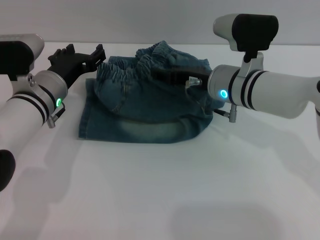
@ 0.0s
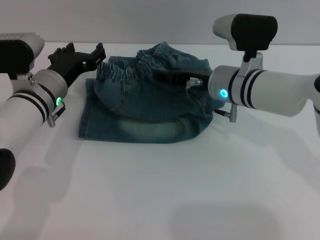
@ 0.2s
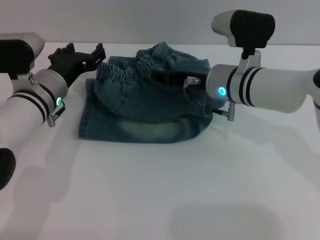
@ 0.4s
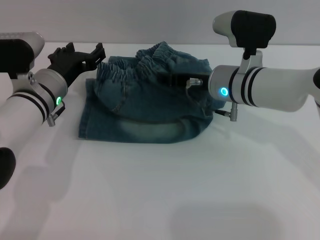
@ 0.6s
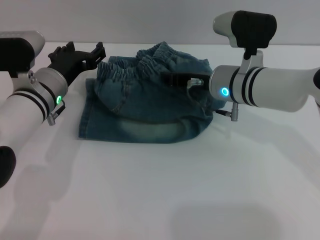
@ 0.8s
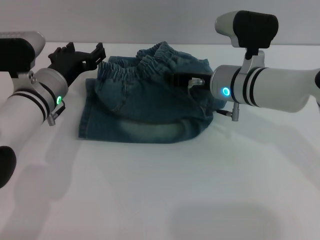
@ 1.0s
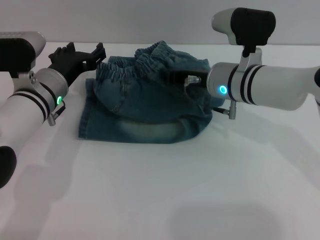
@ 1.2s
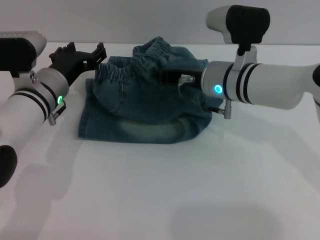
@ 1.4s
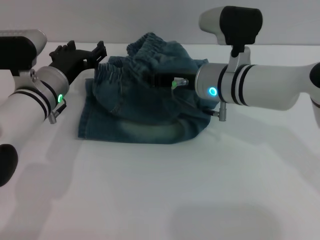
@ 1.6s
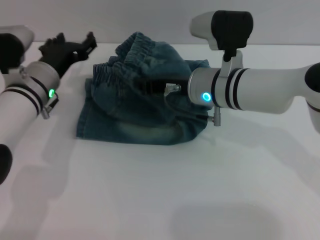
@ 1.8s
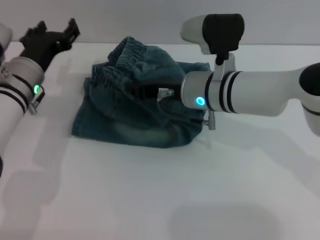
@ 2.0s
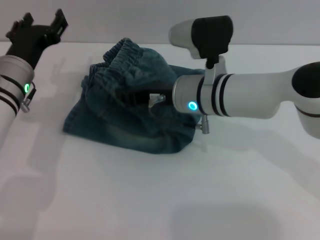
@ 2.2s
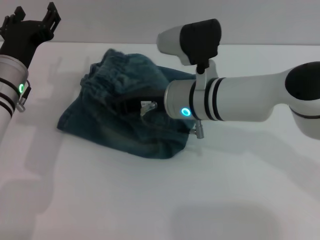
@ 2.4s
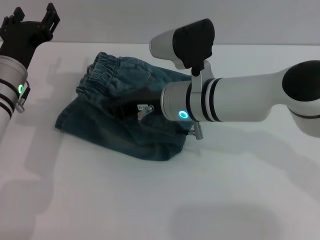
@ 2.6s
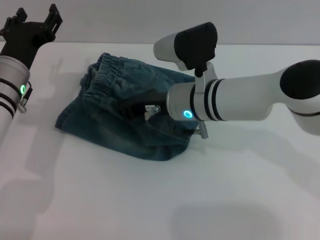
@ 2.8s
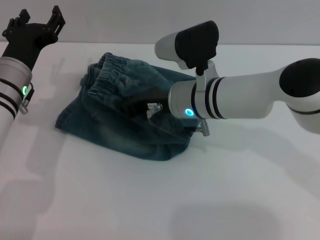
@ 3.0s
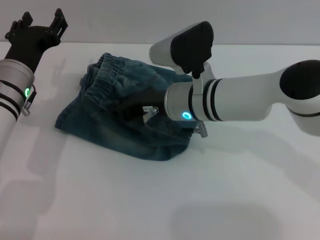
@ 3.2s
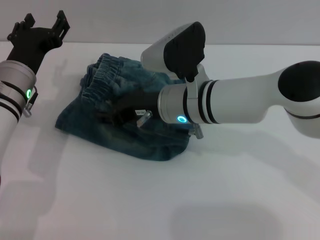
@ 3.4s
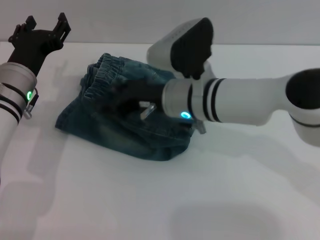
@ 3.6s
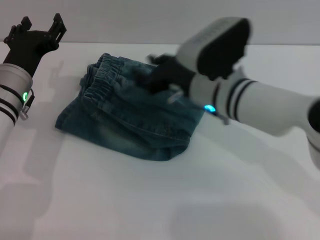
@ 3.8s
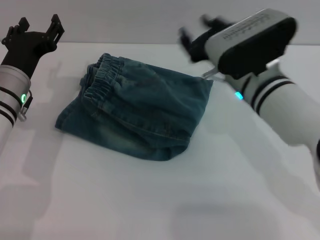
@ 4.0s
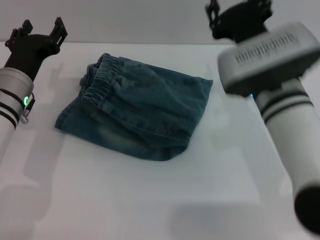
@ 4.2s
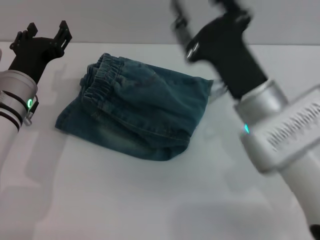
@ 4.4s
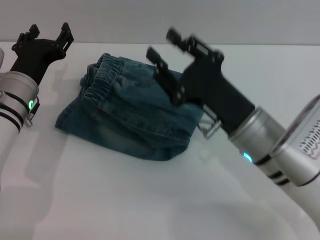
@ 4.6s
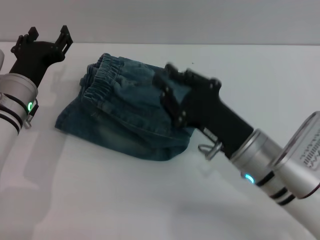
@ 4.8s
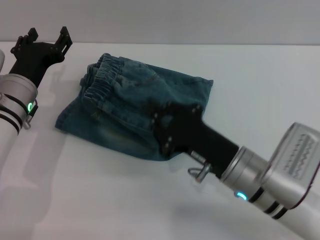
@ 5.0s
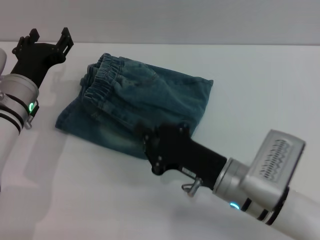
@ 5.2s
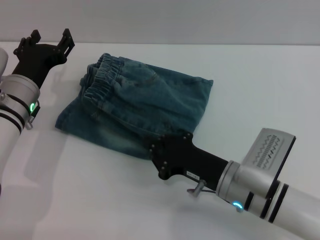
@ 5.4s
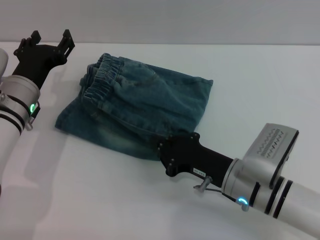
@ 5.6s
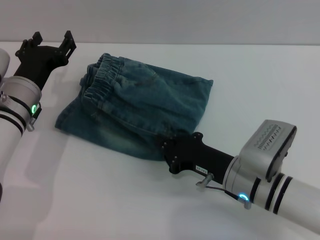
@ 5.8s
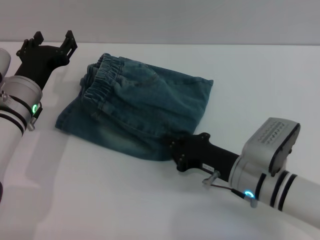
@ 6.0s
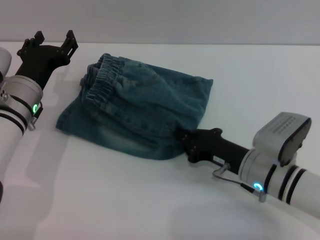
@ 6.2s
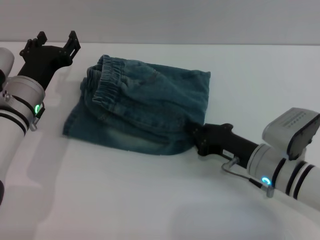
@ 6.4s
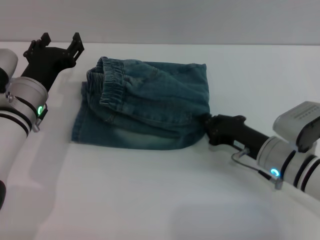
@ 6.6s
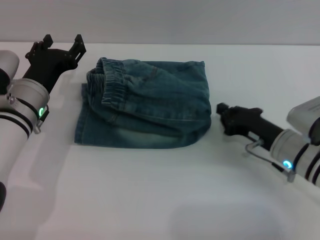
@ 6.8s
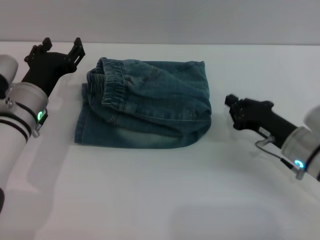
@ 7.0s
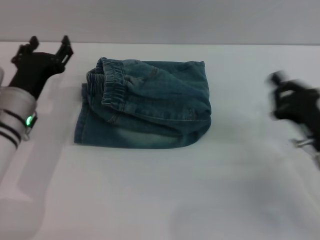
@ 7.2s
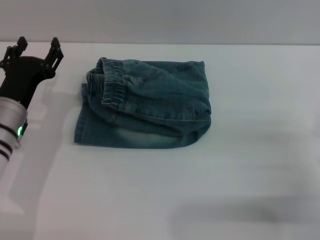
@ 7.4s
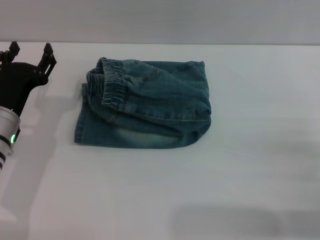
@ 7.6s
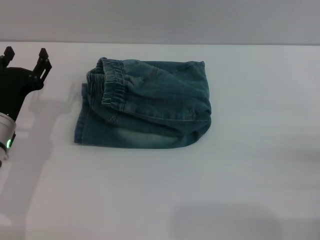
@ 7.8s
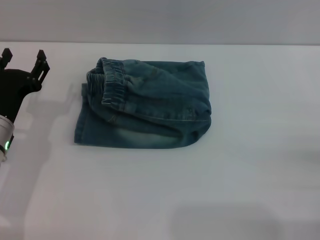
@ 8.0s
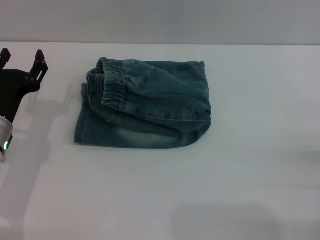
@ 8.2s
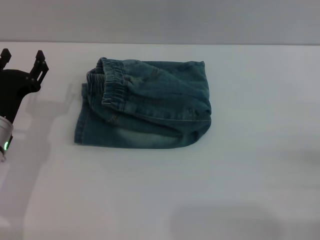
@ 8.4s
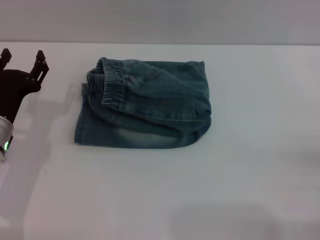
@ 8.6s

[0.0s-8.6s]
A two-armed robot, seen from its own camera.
Step, 0.0s to 3.4s: Fold the pants from right to left with the right gripper.
Step, 3.8s to 6.8s: Place the folded trousers onto the center area with the right grippers.
0.0s to 1.4s: The right gripper closes up.
1.4s to 2.8s: The right gripper ends up approximately 5 cm from where it was.
2.8s to 4.4s: The right gripper goes some 10 cm backward and to the right, and opens up.
4.4s to 5.8s: The right gripper moves downward, some 10 cm, and closes up.
5.8s to 7.2s: The right gripper travels to the right by approximately 10 cm.
7.2s to 8.6s: The right gripper moves to the right and backward, some 15 cm, and opens its fingers. Meanwhile the left gripper shifts by roughly 5 cm.

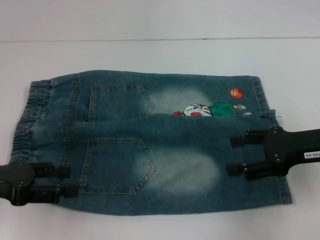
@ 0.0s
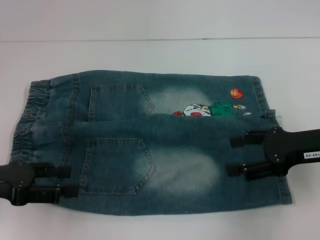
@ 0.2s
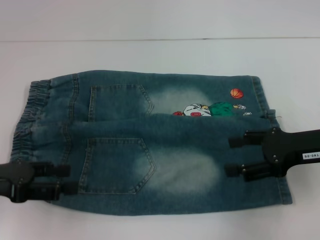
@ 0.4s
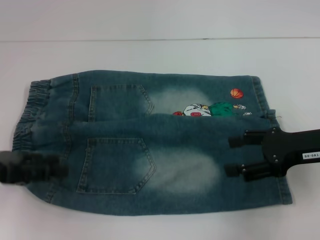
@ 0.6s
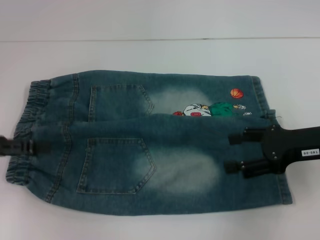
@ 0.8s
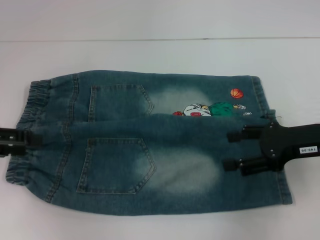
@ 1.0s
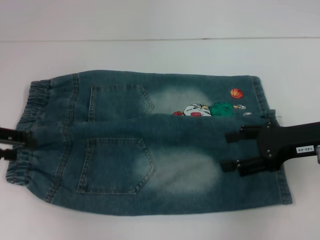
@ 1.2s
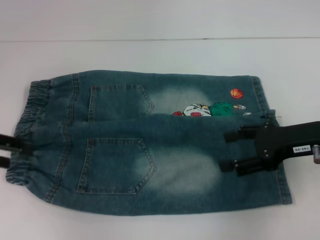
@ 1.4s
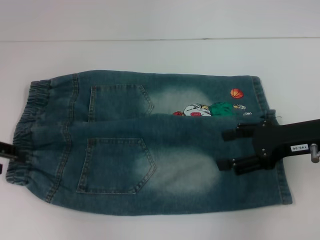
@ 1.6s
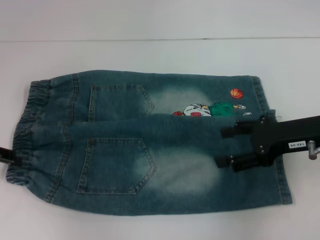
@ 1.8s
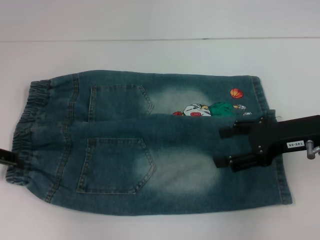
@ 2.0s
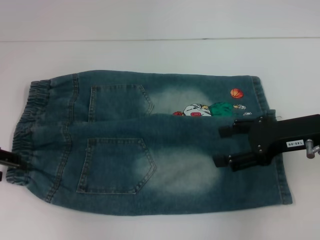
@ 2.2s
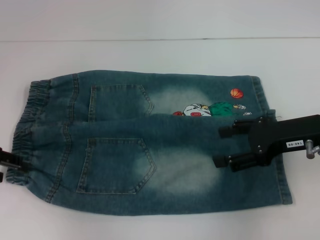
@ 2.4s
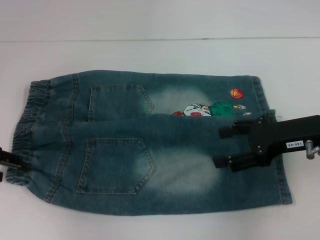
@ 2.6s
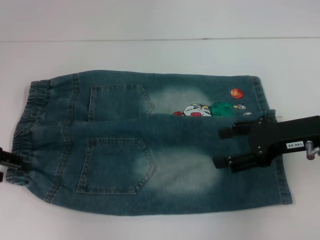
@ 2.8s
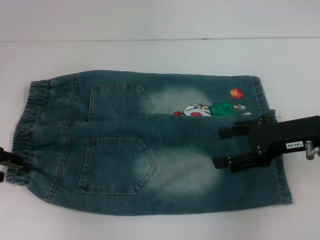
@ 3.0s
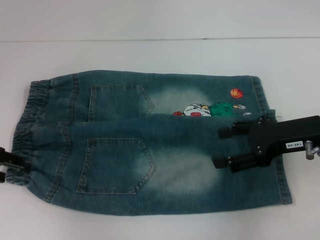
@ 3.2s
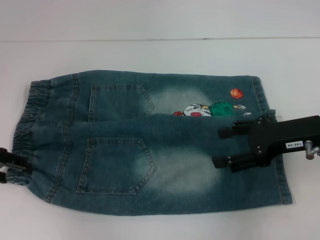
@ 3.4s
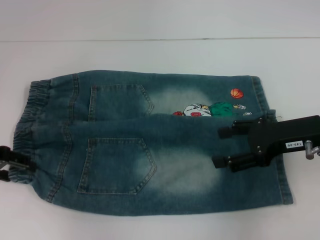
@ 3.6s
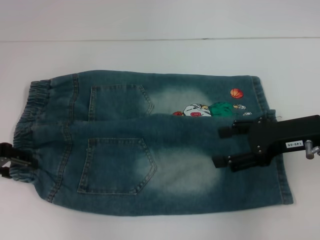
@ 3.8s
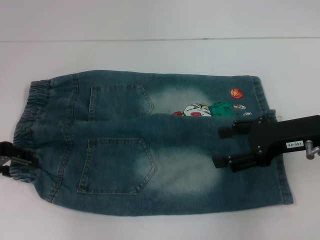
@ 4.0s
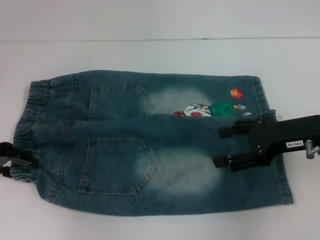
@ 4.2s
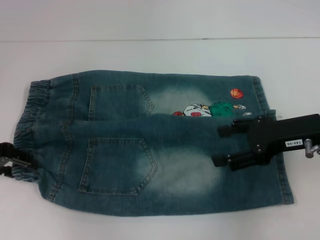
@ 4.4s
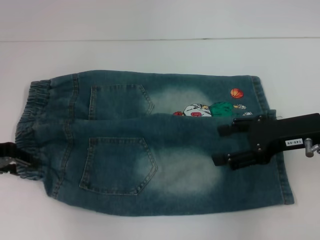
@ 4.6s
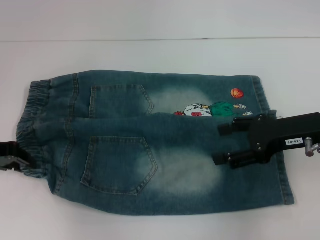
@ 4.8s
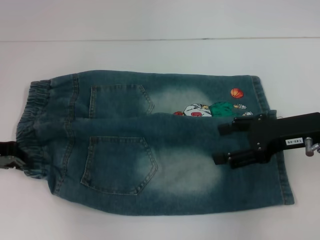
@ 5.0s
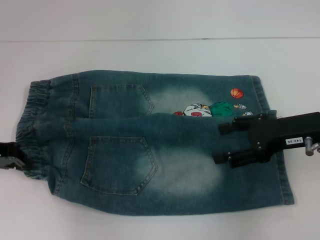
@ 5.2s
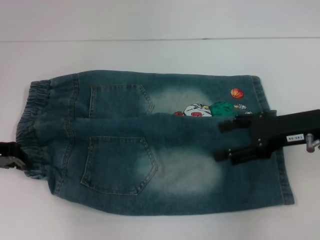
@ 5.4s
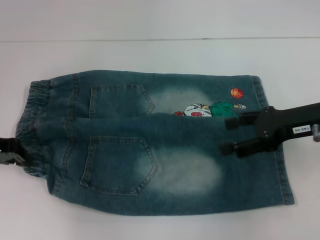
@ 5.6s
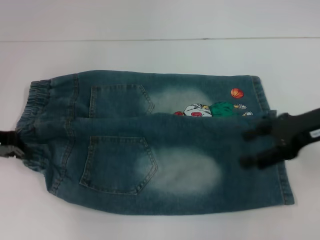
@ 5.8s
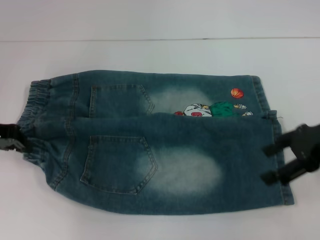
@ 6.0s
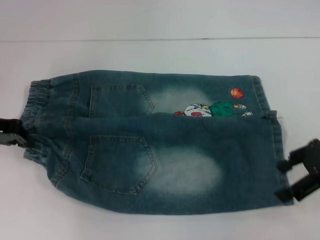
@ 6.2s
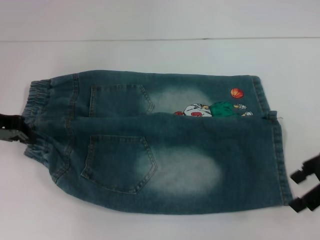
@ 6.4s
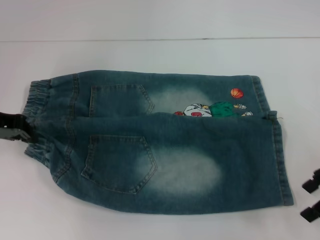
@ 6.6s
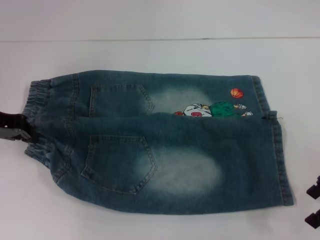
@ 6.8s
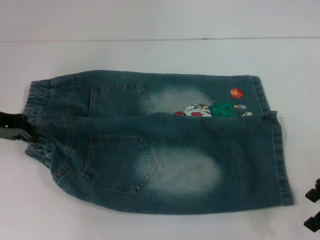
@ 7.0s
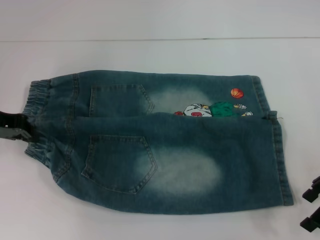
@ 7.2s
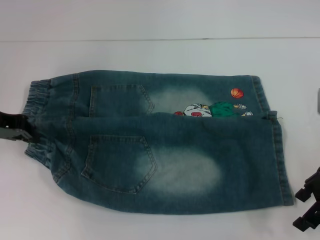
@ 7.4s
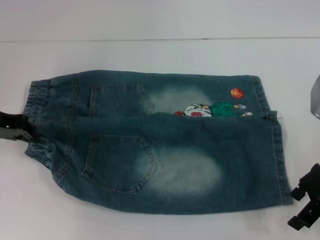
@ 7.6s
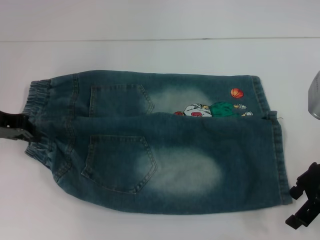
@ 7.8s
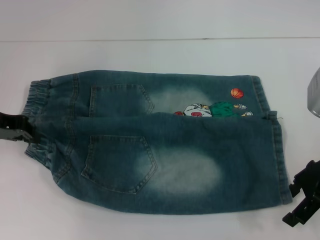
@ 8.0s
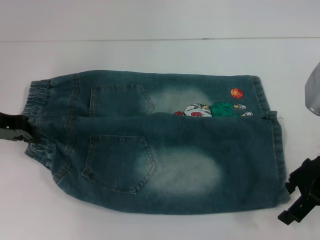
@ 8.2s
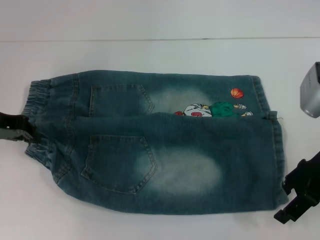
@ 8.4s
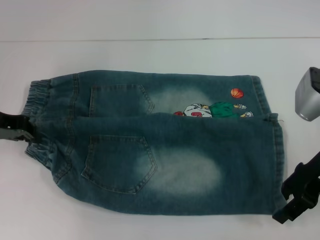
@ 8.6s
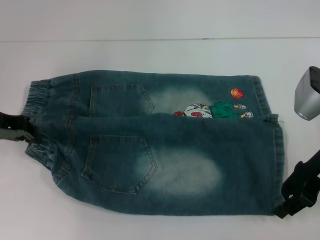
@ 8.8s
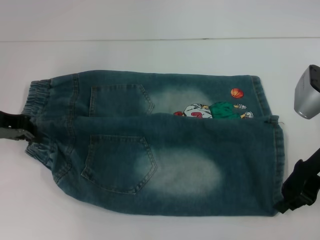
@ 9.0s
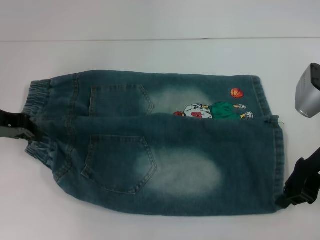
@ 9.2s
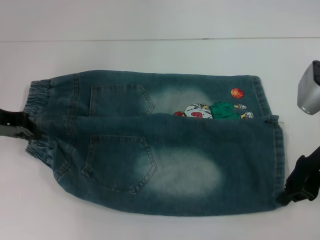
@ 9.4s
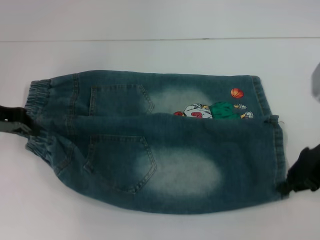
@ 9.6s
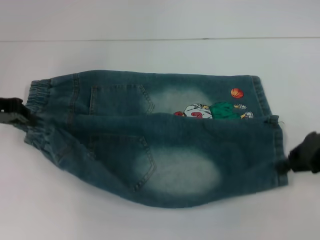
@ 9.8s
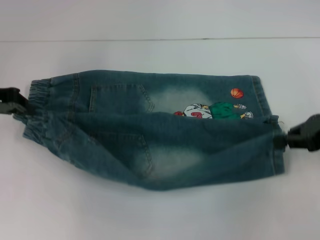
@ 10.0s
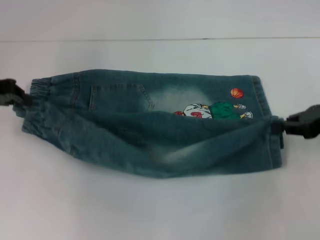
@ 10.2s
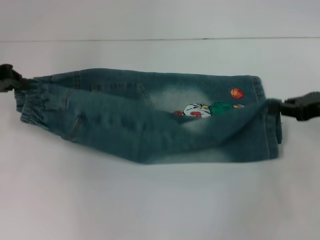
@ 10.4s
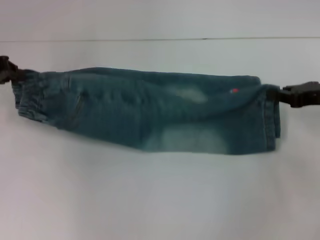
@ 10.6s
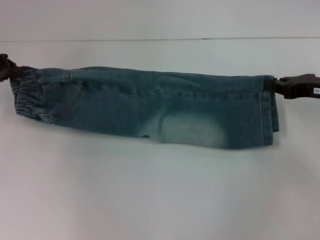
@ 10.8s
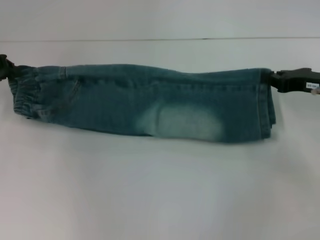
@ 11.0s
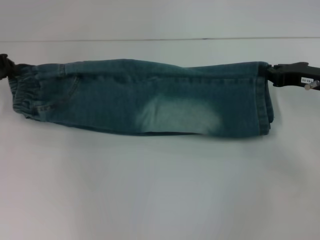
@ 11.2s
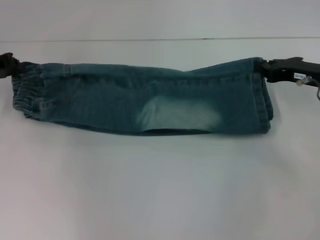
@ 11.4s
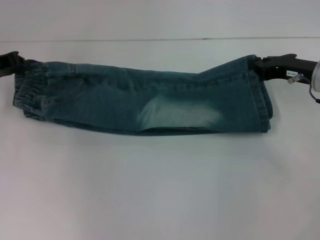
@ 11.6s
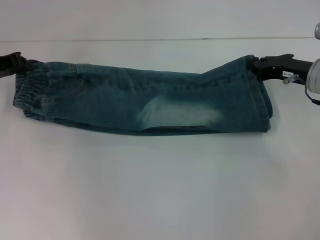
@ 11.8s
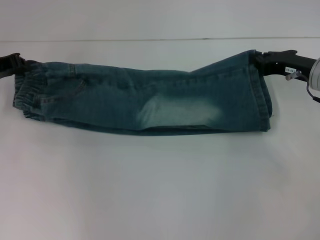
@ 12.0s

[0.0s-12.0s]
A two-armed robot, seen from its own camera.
Step, 0.0s to 5.4s: Hold the lower left waistband with your left hand.
Step, 5.6s to 9.2s: Grab the lower right pant leg with your right hand.
0.0s to 1.6s: The left gripper goes about 5 cm forward.
1.6s to 3.0s: The grippers make only small movements.
3.0s to 4.4s: Neither gripper changes place.
4.4s to 6.0s: The right gripper changes place by approximately 5 cm. Meanwhile the left gripper closes its fingers.
7.6s to 9.0s: The right gripper closes its fingers.
9.0s to 10.4s: The right gripper is displaced to the right by roughly 5 cm.
10.4s to 12.0s: The right gripper shifts about 10 cm to the left and forward.

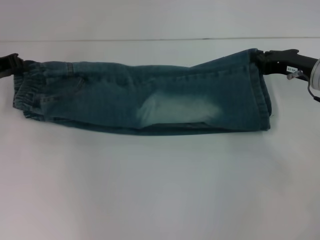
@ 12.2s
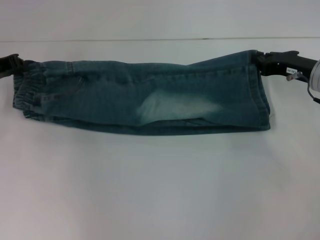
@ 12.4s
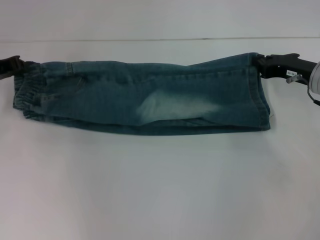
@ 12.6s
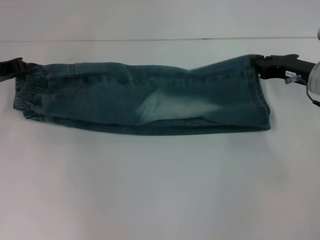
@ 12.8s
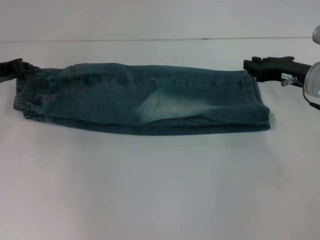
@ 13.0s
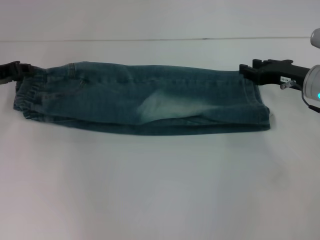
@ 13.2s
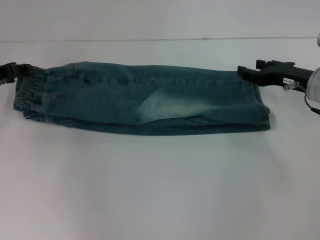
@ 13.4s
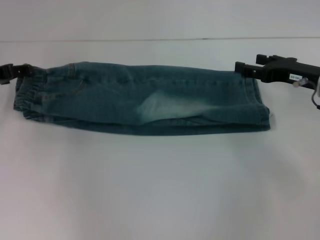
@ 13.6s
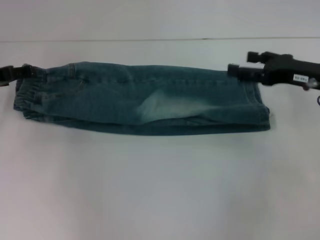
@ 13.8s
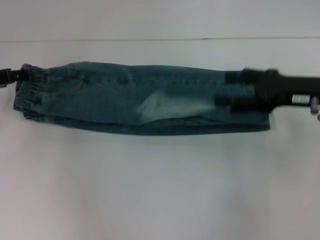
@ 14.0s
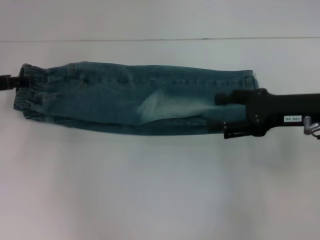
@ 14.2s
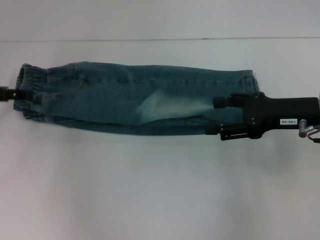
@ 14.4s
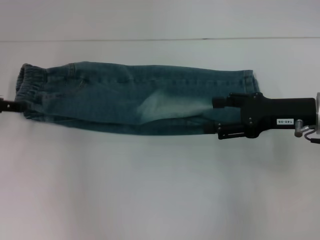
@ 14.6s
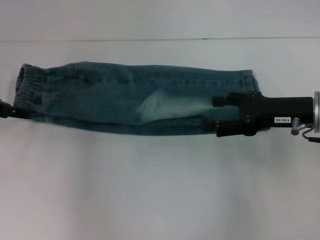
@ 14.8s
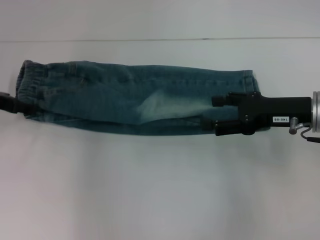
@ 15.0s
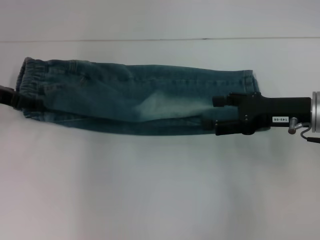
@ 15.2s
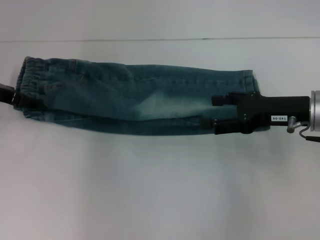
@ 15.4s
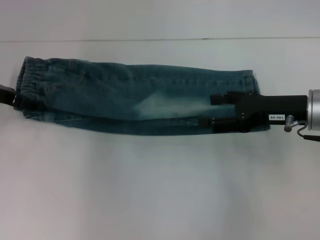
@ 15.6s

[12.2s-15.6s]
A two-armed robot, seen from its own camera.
12.2s to 13.8s: The right gripper opens. The left gripper opens up.
